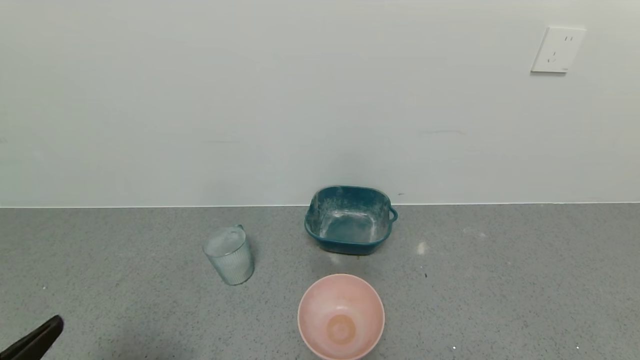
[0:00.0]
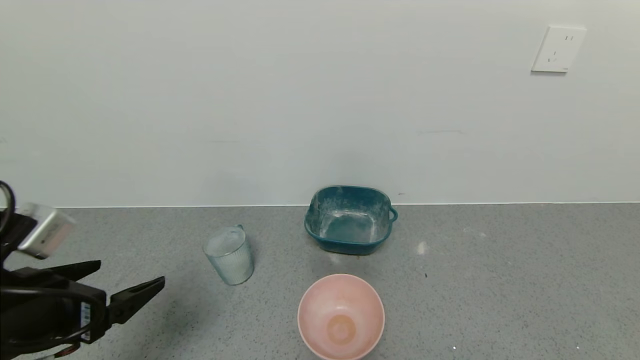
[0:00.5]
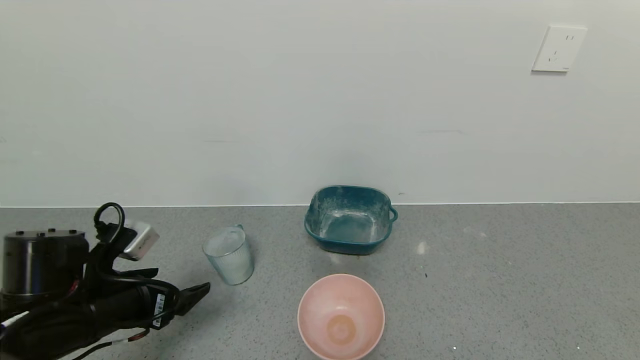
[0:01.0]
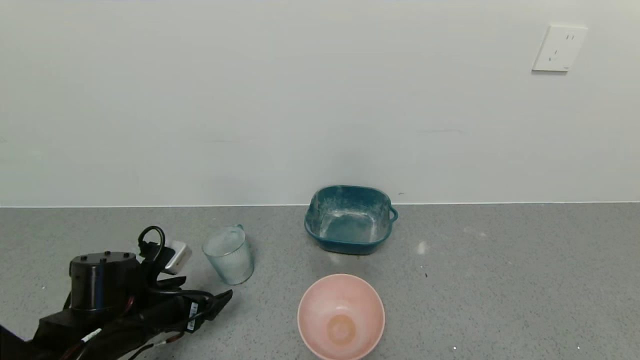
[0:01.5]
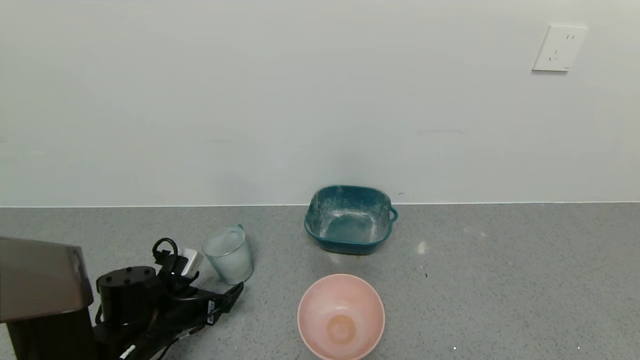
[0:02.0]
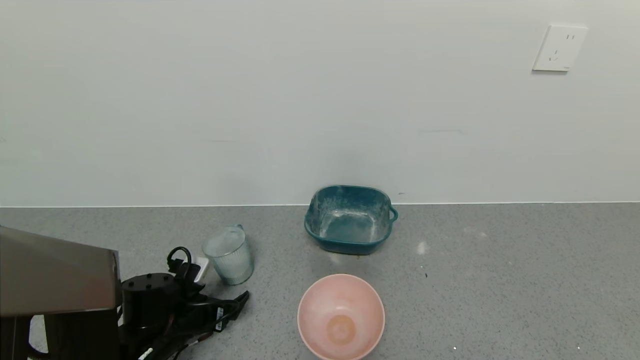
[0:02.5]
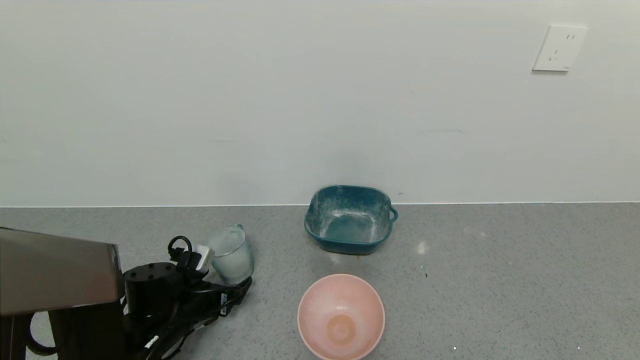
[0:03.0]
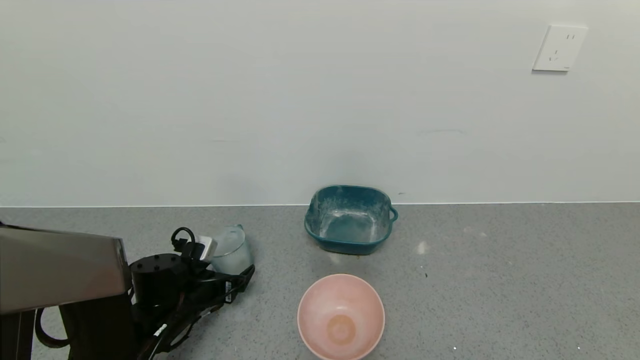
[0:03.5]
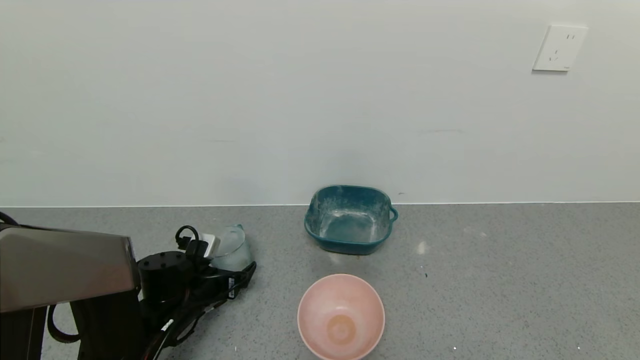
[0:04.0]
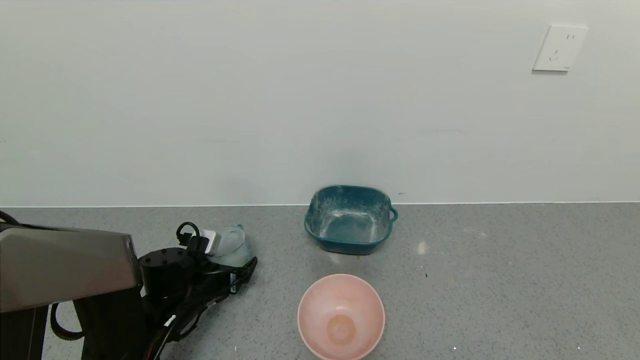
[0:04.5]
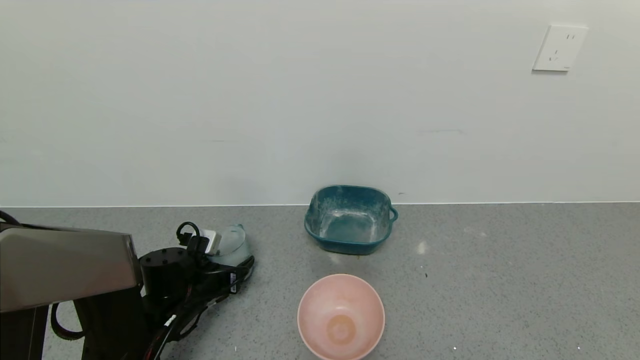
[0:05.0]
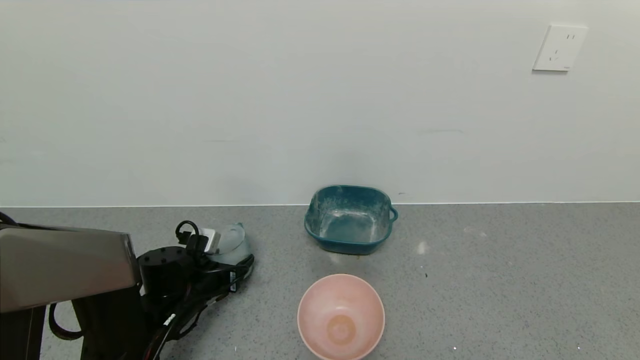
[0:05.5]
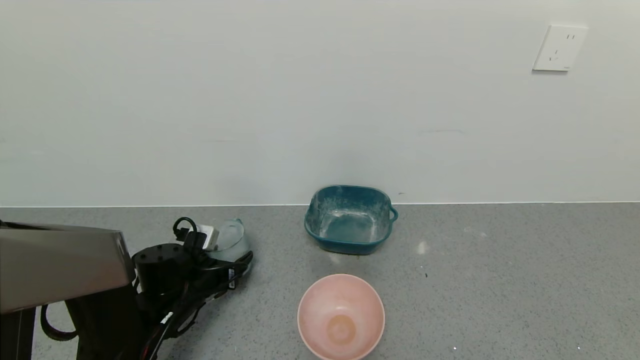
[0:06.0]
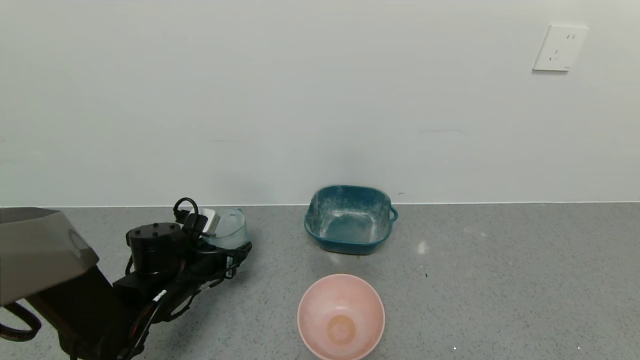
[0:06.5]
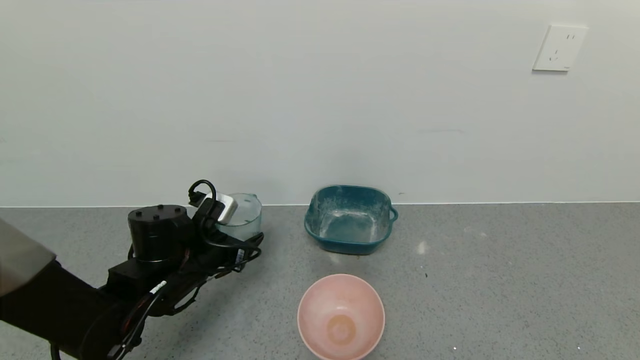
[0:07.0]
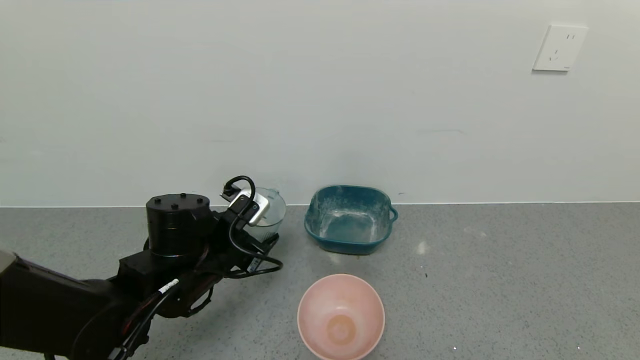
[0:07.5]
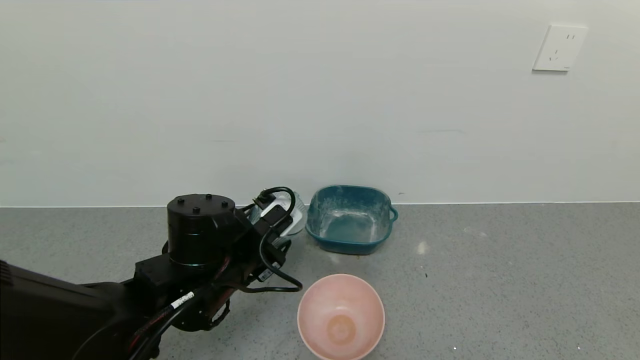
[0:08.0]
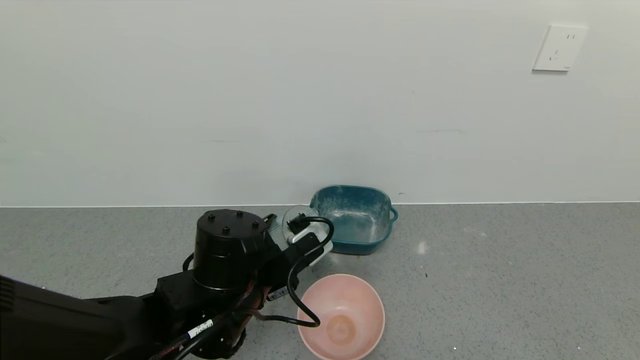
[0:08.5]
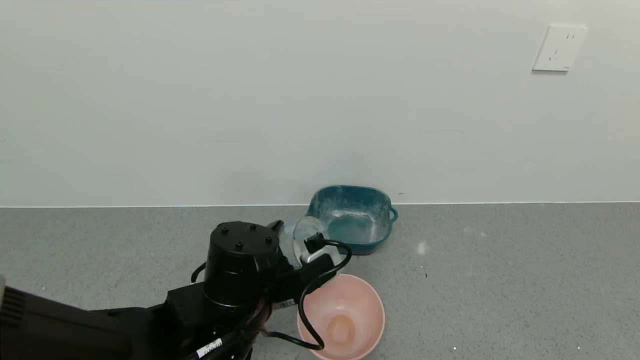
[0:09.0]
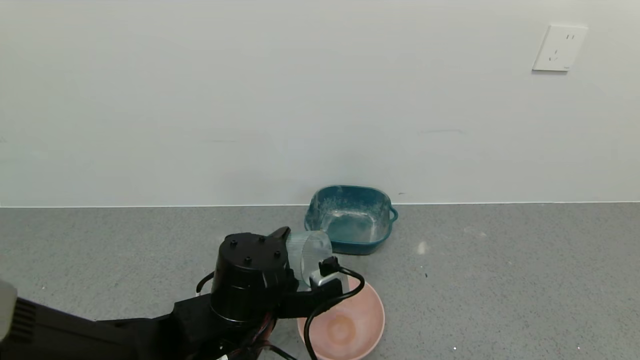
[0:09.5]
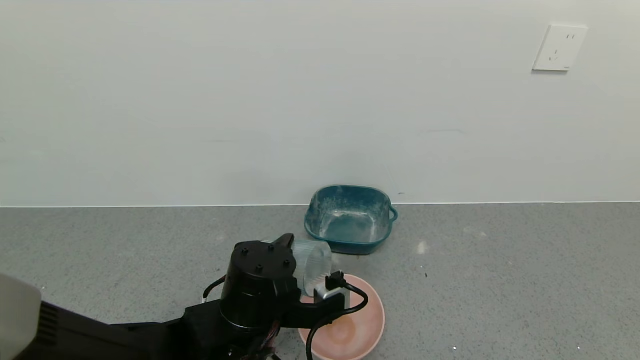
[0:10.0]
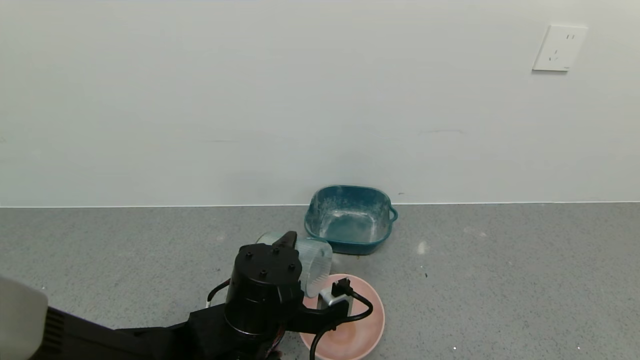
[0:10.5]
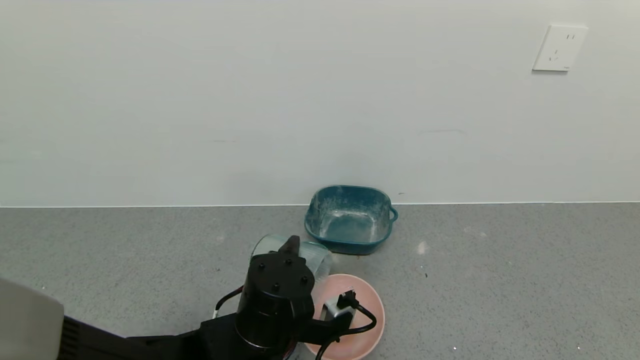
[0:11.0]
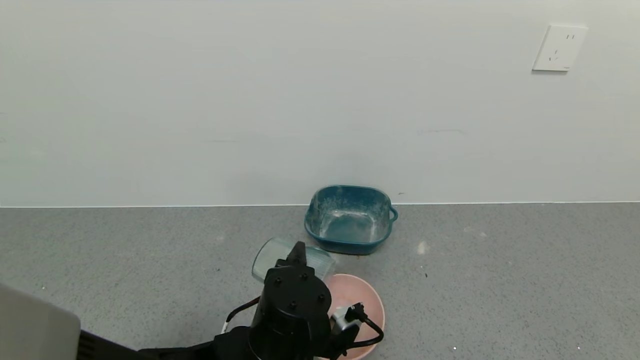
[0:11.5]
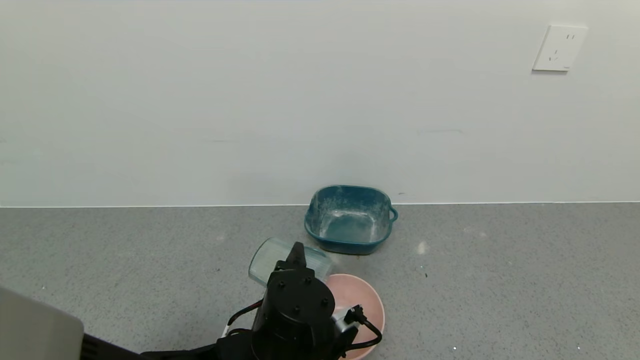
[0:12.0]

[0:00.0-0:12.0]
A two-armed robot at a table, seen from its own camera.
Task of the whole recording: use a gripper to pick up the cup and pour the powder into a bowl or tray.
Step, 0:00.0 to 0:04.5: Grasp the glass of powder with the left gripper.
0:00.0 to 0:02.0: The left gripper goes approximately 30 cm forward and downward.
0:02.0 to 0:04.0: The left gripper is displaced forward by some 5 cm.
0:04.0 to 0:06.0: The left gripper closes.
0:06.0 to 0:08.0: The left gripper goes roughly 15 cm upward, to the right and backward.
0:08.0 to 0:10.0: The left gripper ends up roughly 5 cm from where it was.

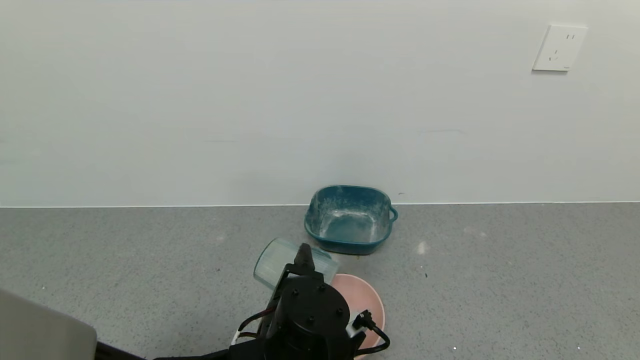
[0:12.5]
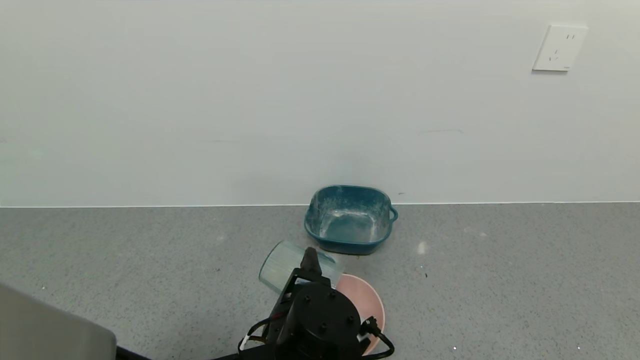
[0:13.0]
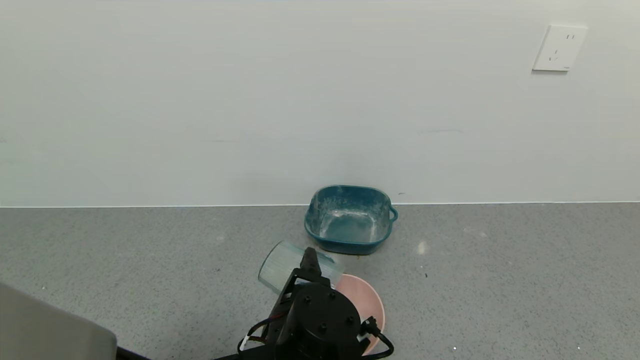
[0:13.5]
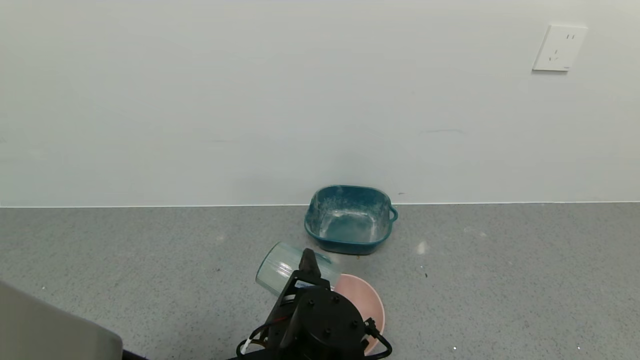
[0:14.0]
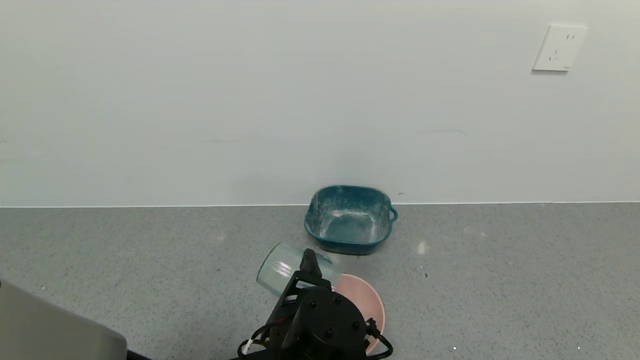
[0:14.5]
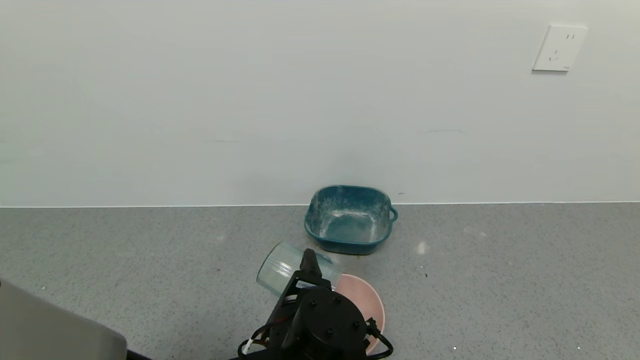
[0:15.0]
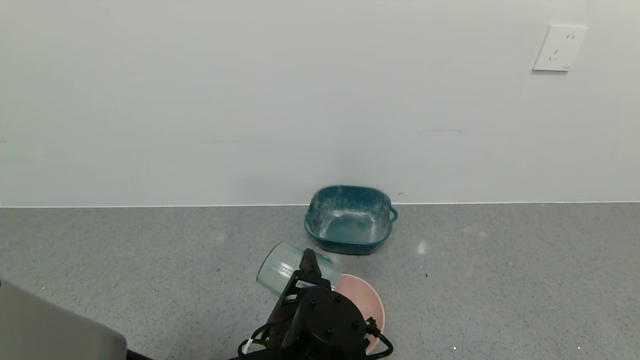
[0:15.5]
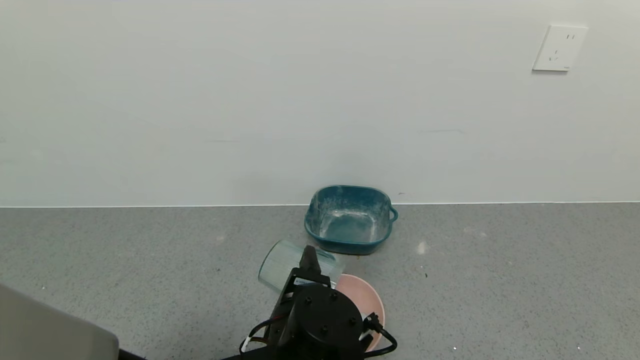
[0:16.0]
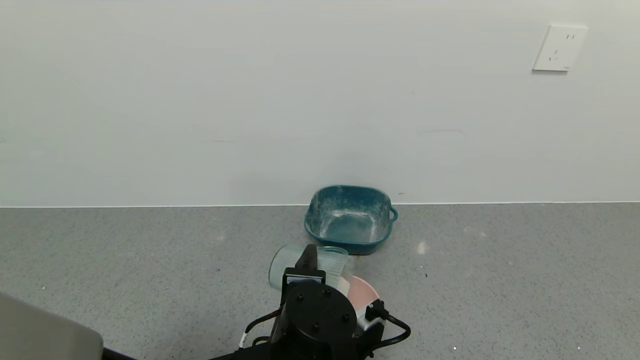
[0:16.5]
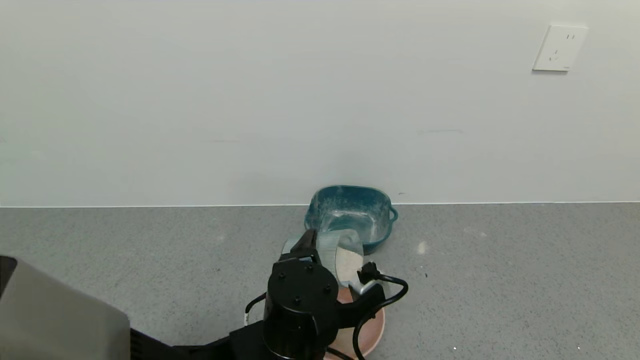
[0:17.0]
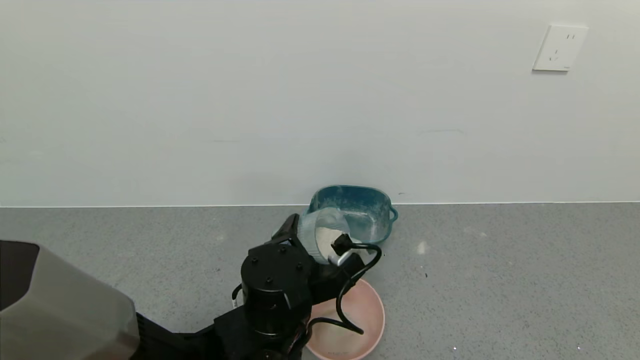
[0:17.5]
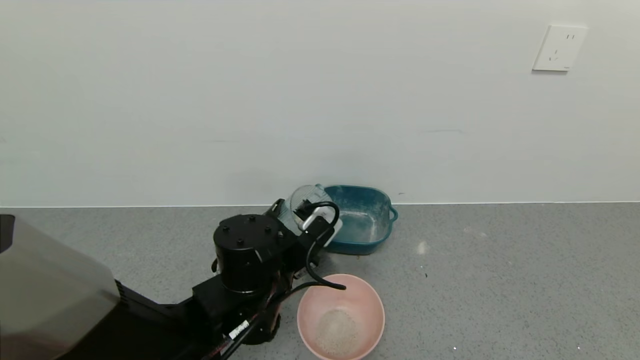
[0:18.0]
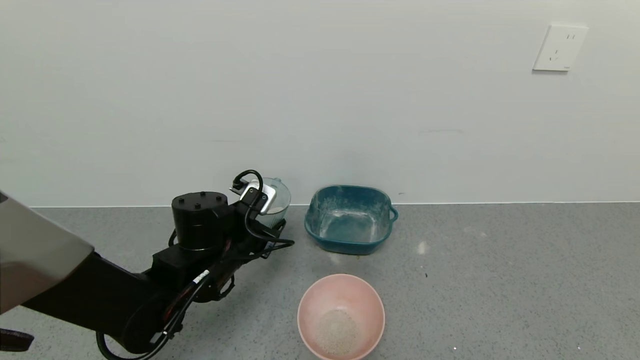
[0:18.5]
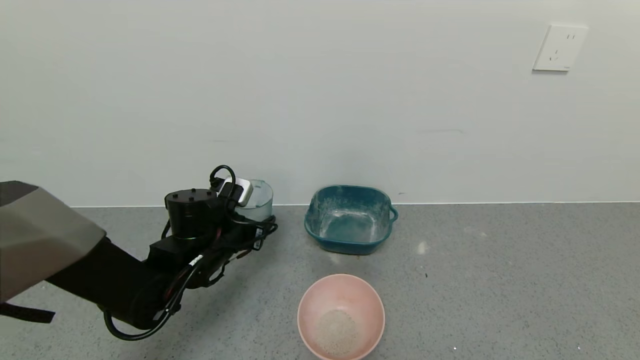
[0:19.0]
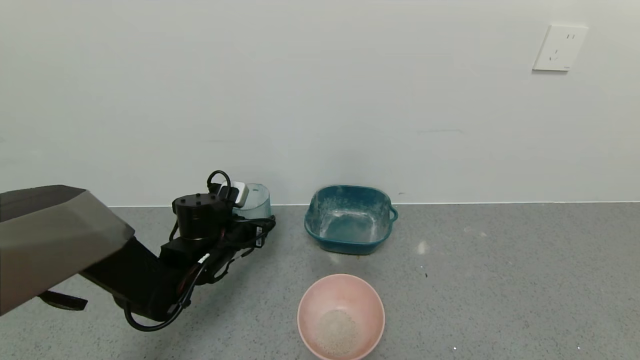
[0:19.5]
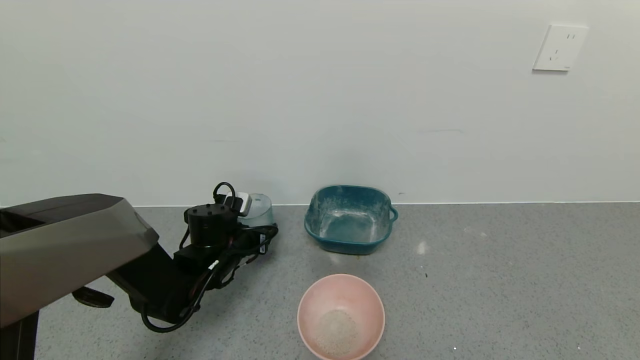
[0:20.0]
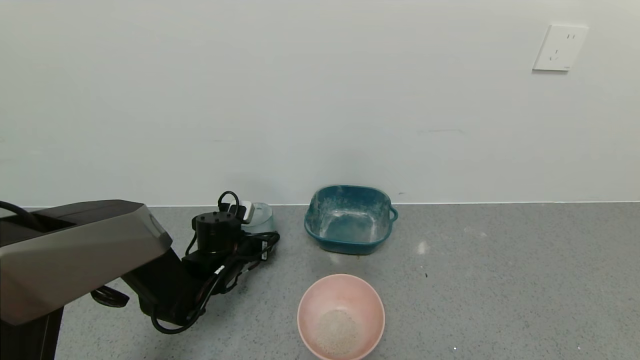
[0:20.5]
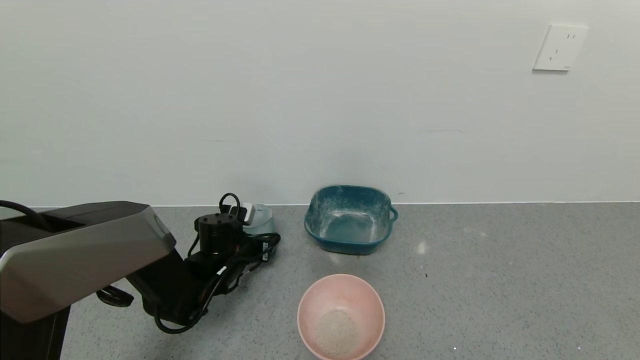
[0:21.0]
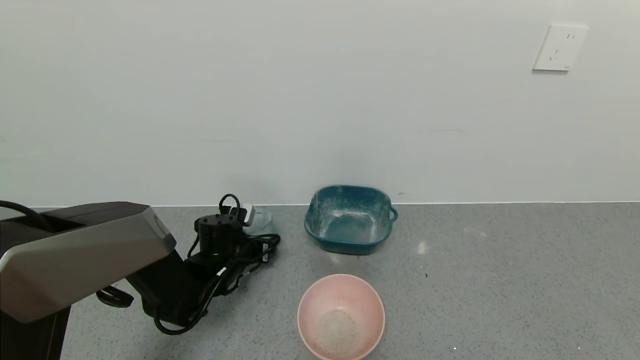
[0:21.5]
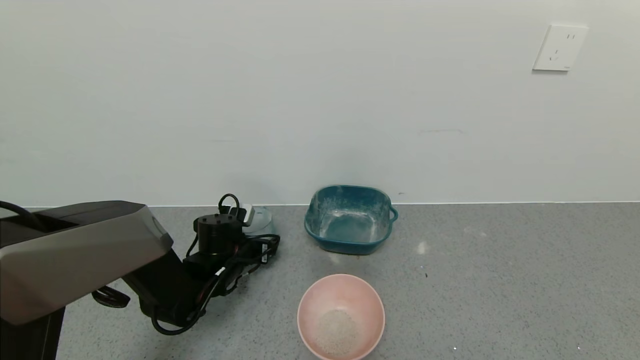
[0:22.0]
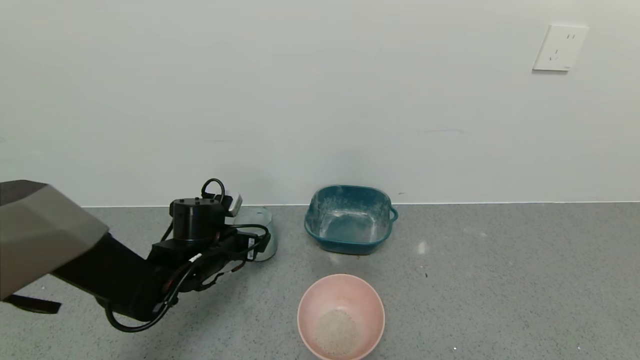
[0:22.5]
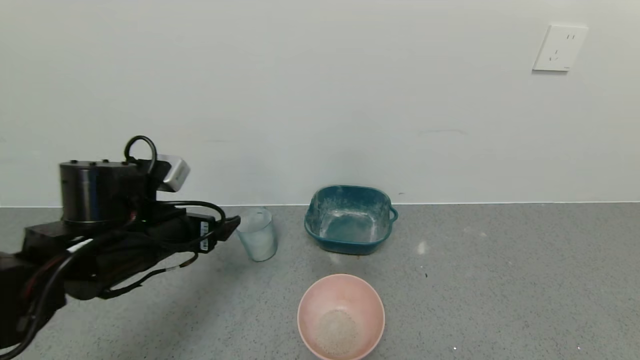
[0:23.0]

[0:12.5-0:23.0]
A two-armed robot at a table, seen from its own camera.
Task of the whole recording: use a gripper to pick up the cup and pour the powder into a bowl or tray.
Step, 0:12.5 to 0:16.5: Pour the powder into the pink bowl with the left gripper.
Step, 0:17.0 to 0:22.5: Place the glass cup down with the left gripper.
0:12.5 to 0:14.5: Both grippers stay put.
0:16.5 to 0:19.0: The left gripper goes approximately 20 cm forward and to the left.
0:19.0 to 0:21.0: The left gripper heads downward, covering approximately 10 cm.
0:21.0 to 0:23.0: The left gripper goes some 20 cm upward and backward, and opens.
